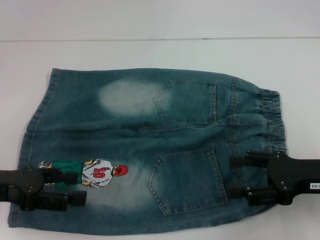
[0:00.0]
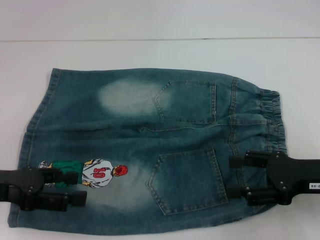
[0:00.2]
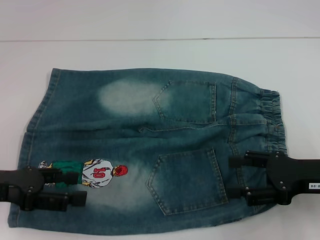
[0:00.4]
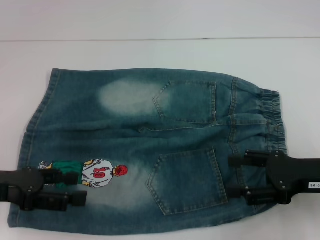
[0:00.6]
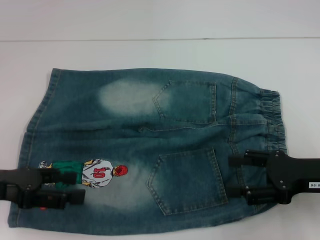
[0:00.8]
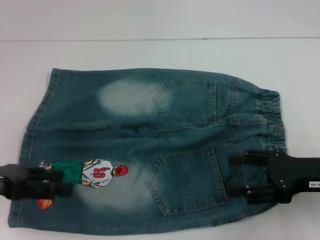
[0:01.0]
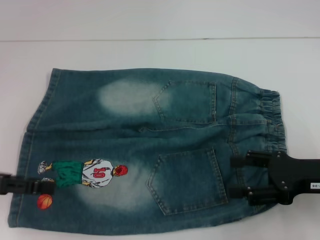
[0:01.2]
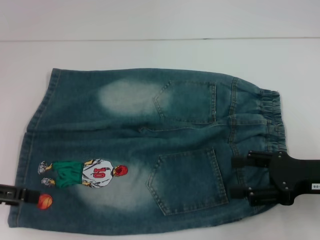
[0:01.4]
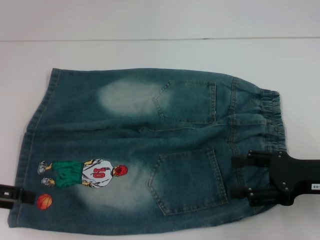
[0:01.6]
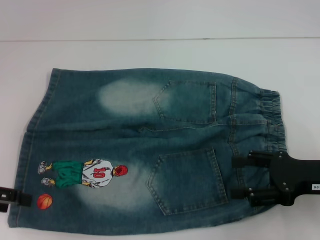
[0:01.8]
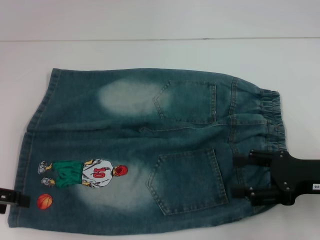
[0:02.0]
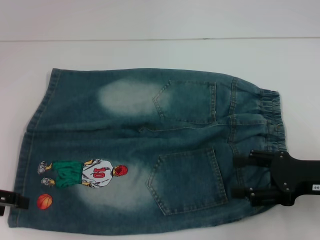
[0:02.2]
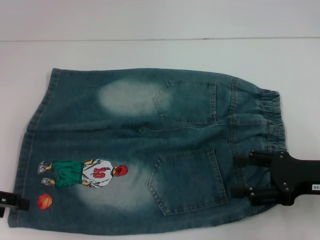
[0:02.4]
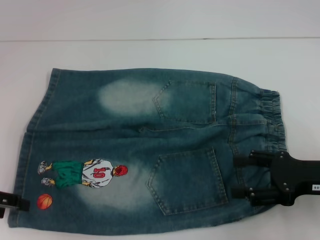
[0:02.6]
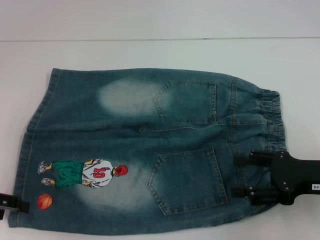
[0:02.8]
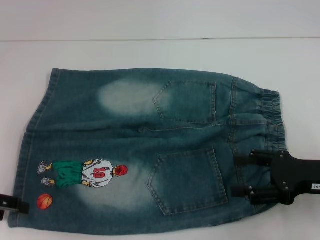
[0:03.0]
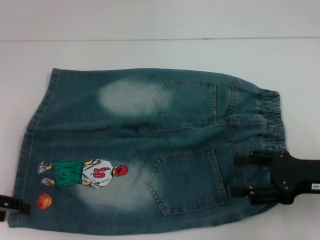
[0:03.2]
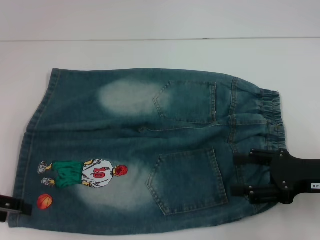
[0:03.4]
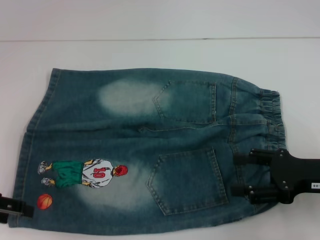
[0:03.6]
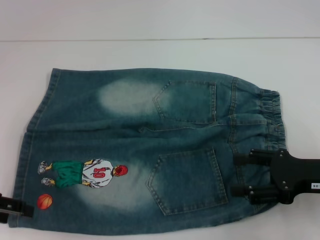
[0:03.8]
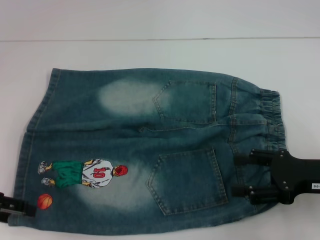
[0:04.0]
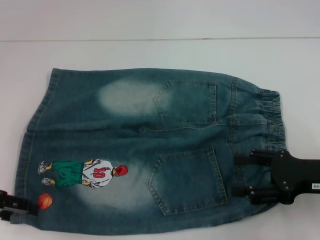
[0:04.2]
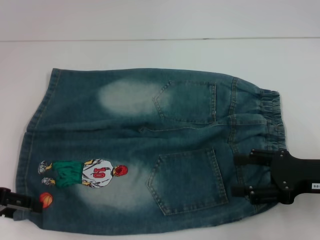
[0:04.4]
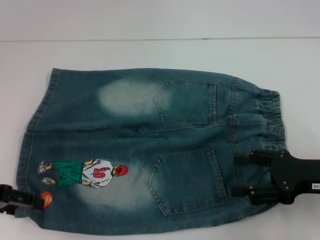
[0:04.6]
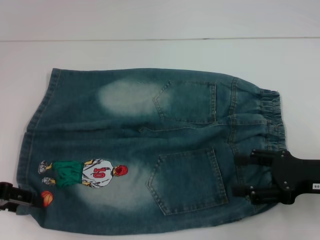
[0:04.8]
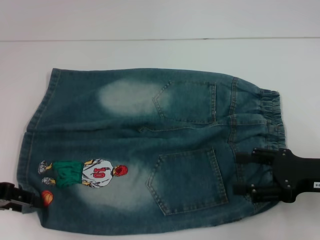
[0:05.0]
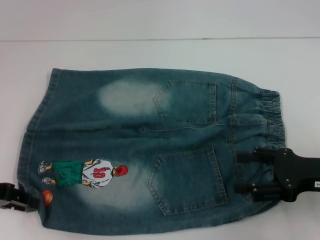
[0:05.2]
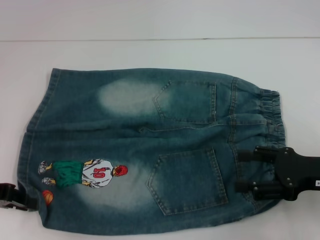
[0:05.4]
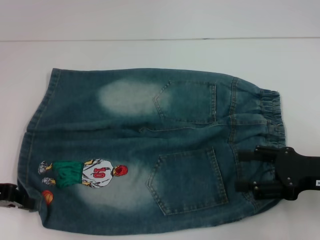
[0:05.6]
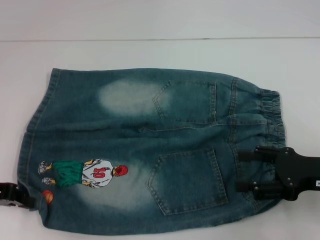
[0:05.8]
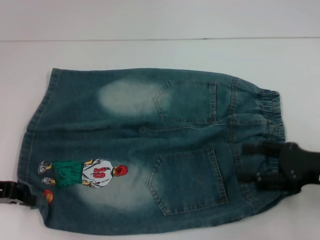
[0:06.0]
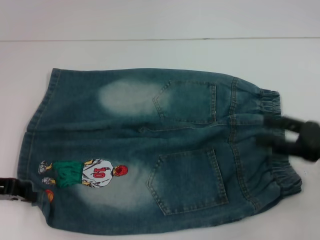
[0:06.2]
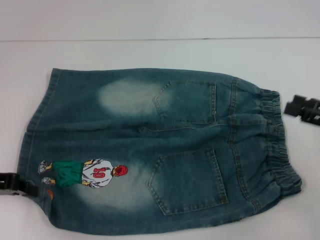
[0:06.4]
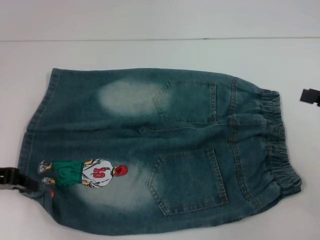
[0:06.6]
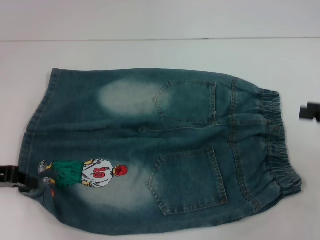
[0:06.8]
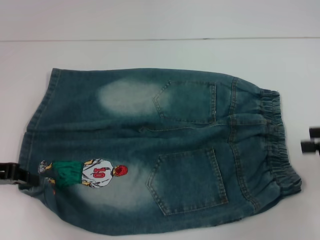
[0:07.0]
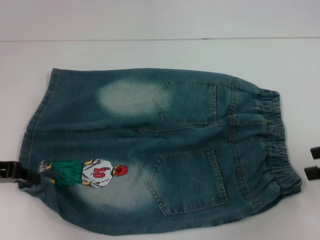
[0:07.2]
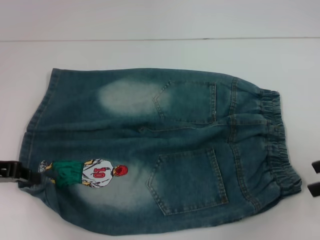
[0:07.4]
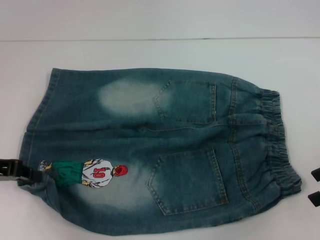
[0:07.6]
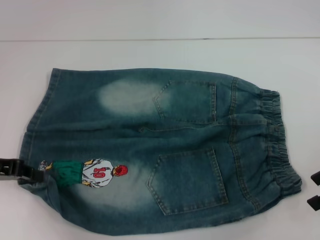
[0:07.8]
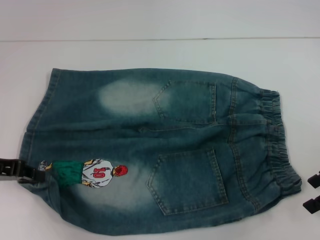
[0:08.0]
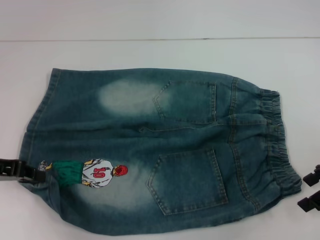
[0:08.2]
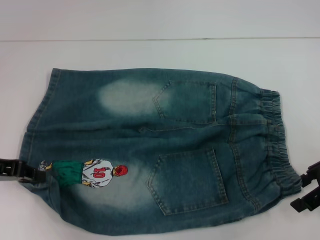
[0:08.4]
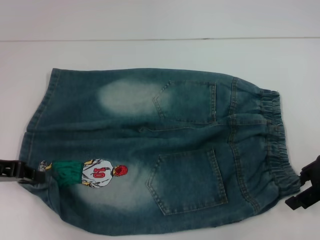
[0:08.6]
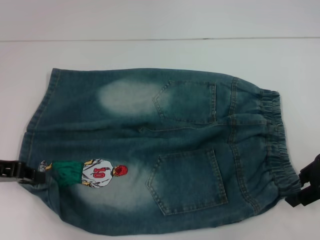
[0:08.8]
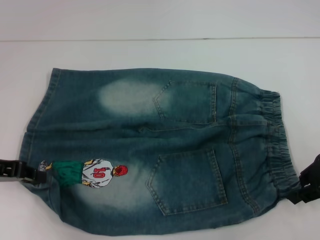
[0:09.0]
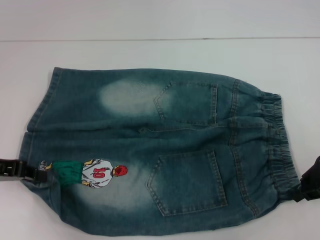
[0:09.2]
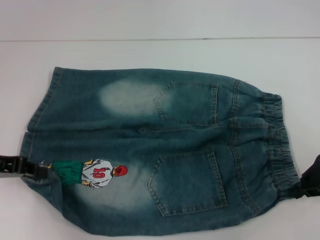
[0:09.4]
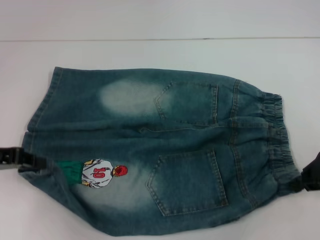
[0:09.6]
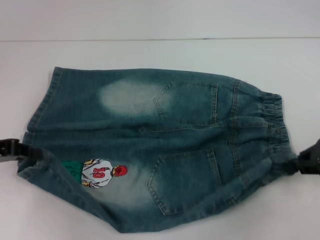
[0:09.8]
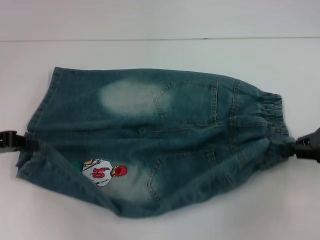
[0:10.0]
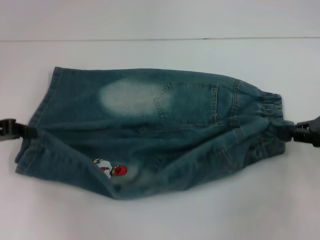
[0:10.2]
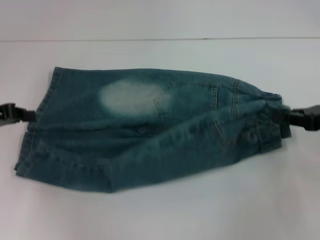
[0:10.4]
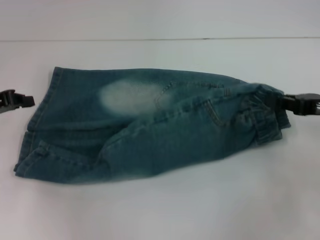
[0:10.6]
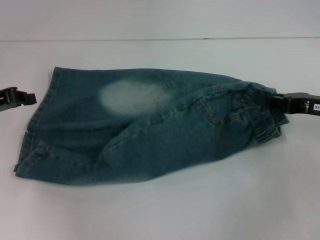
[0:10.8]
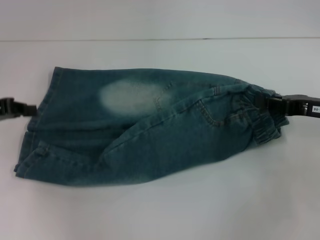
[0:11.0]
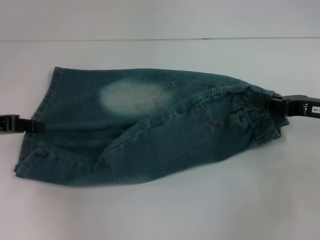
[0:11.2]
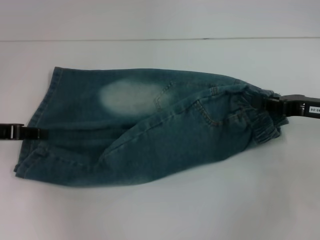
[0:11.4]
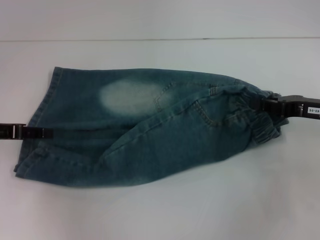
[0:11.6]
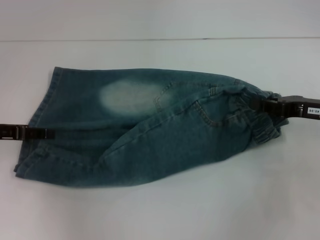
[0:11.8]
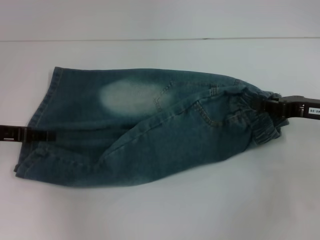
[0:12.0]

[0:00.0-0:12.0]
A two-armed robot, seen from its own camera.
Step, 0:00.0 to 0:05.8: Grab the lower left pant leg with your left hand.
Step, 0:06.2 to 0:09.2: Hold the lower right waistband with your right hand.
0:00.0 to 0:01.6: The left gripper moves roughly 5 cm.
0:03.0 to 0:04.4: The grippers make only small movements.
0:04.4 to 0:06.0: The left gripper closes up.
0:06.0 to 0:07.6: The right gripper moves upward and to the right, some 10 cm.
0:07.6 to 0:09.0: The right gripper travels to the left by about 5 cm.
0:09.0 to 0:10.4: The right gripper closes.
0:10.4 to 0:12.0: The left gripper opens up.

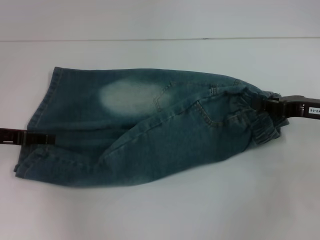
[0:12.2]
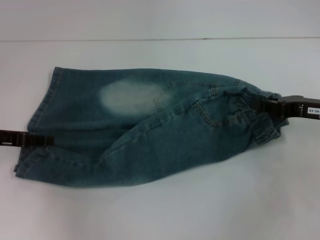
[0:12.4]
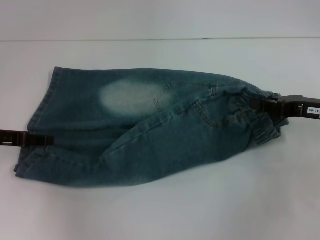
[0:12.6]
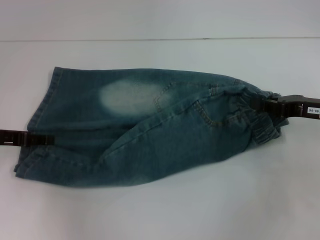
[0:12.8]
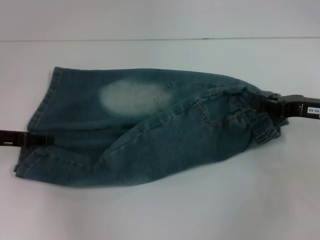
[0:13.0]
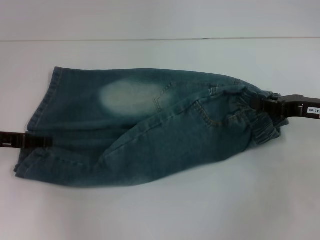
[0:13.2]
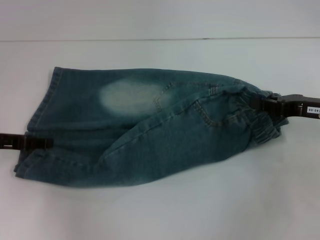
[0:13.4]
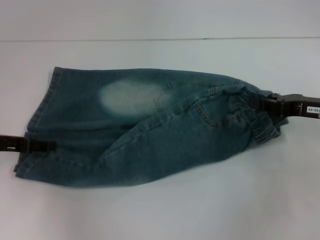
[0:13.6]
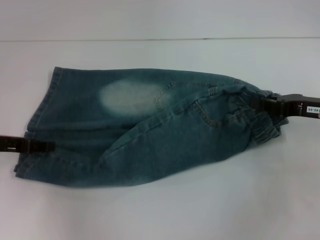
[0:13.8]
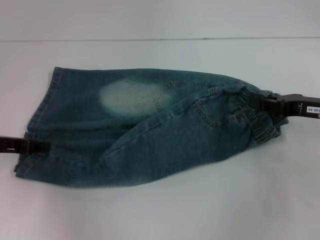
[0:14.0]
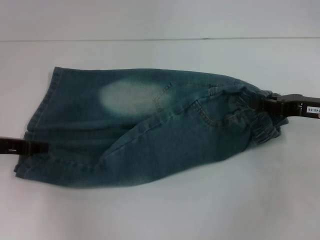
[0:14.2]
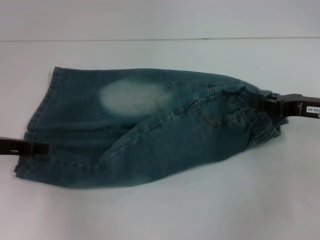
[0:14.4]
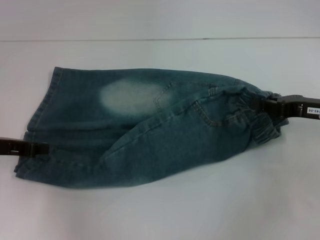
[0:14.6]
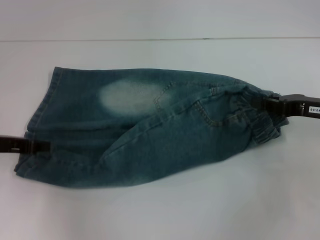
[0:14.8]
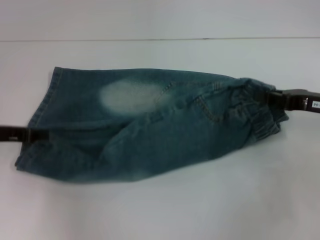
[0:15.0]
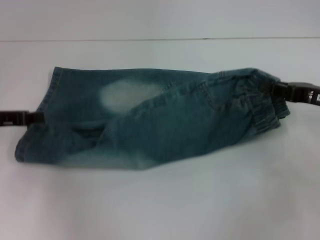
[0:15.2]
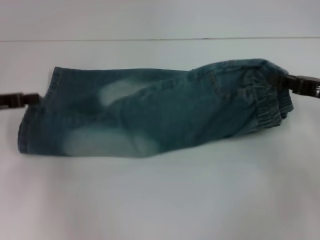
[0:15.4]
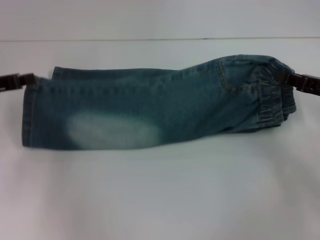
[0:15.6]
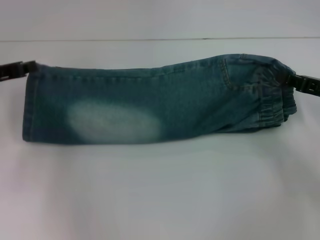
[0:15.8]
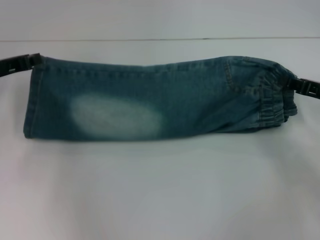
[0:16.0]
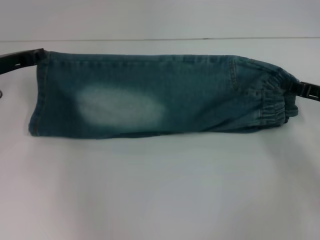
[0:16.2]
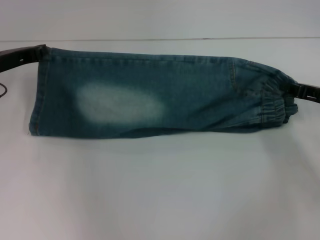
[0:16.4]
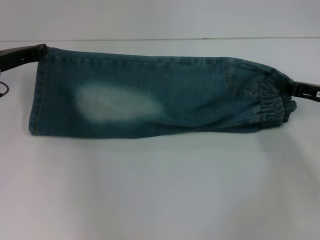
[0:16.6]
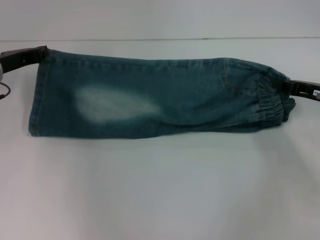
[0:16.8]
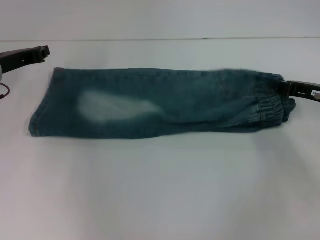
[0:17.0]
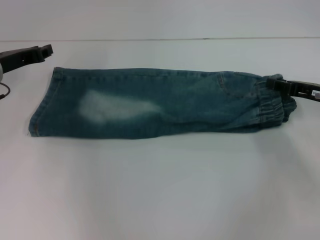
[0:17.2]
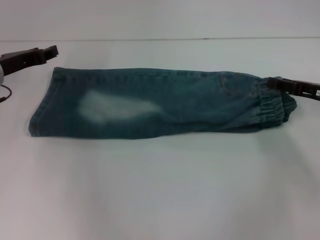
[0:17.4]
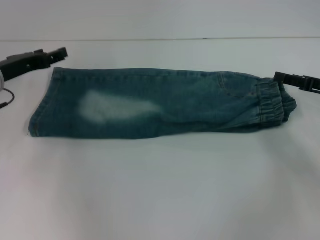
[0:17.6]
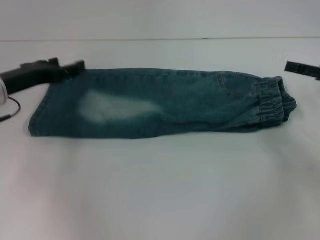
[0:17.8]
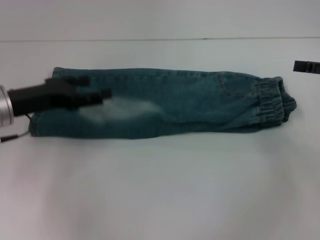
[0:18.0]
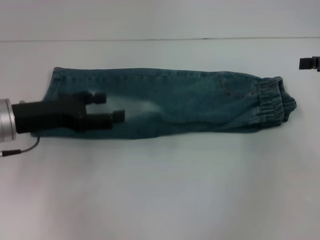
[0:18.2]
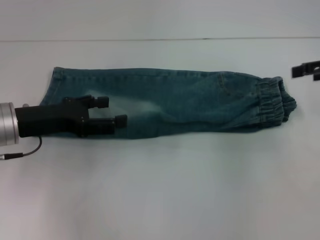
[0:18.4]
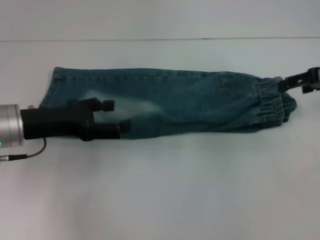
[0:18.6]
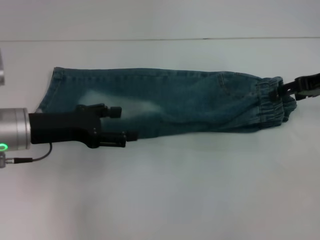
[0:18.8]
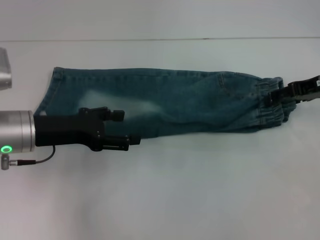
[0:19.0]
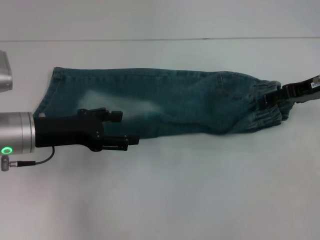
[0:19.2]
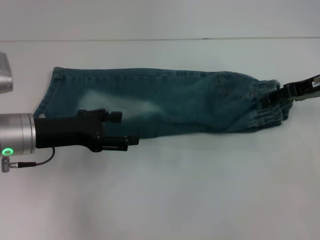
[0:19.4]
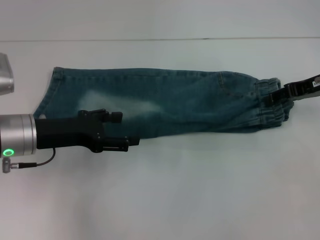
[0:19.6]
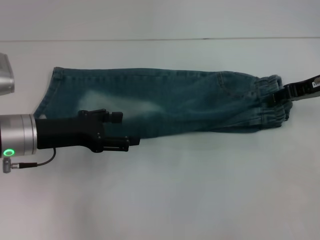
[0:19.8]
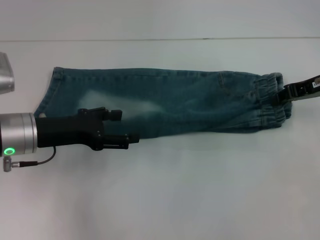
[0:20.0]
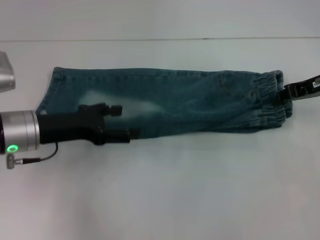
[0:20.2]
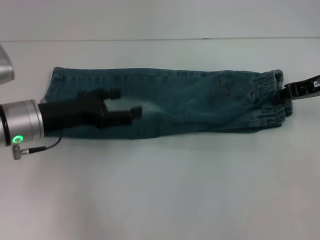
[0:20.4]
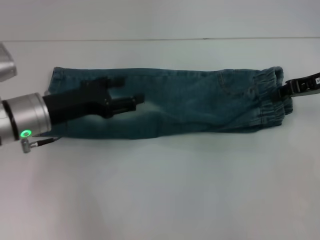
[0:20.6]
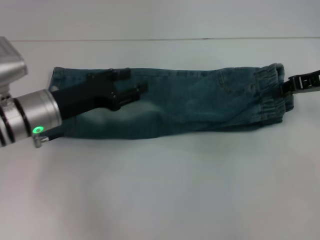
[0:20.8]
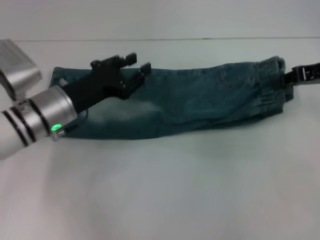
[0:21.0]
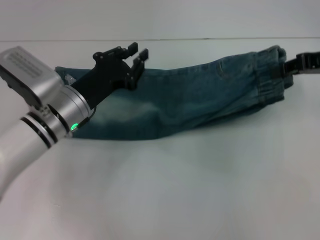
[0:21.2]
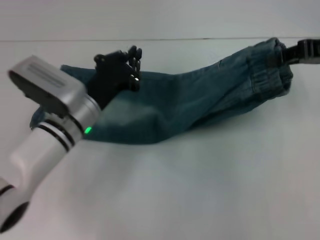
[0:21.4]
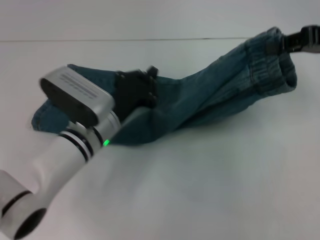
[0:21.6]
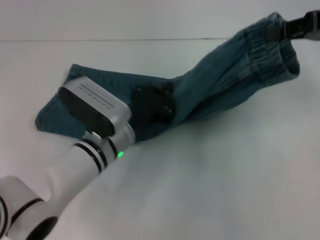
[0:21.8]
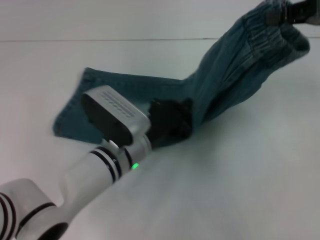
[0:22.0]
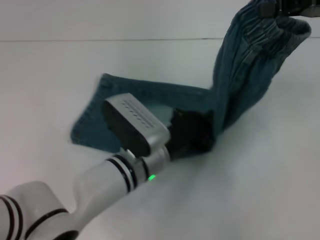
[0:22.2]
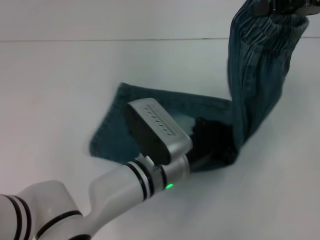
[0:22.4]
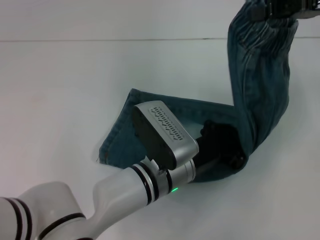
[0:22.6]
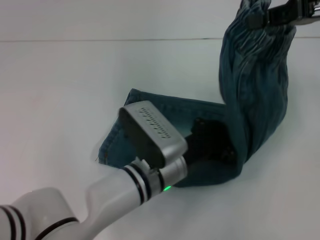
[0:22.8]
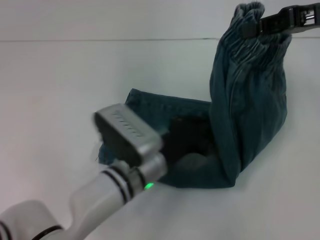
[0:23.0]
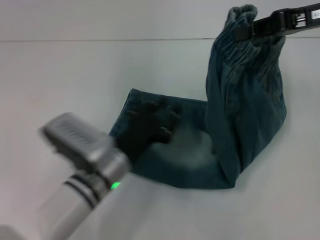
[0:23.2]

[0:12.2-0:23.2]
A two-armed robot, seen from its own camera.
Step, 0:12.2 to 0:17.2: Fold upward with your left hand.
Step, 0:17.6 to 0:20.2: Grab the waistband with your right hand.
Step, 0:20.4 to 0:22.6: Press the middle of the pants with your left hand.
0:12.2 to 0:13.8: The grippers stay close to where they were, moving slightly.
0:13.8 to 0:15.4: The left gripper closes up.
0:15.4 to 0:17.0: The left gripper moves forward, approximately 5 cm.
0:17.0 to 0:18.4: The left gripper heads backward, covering roughly 10 cm, and opens; the right gripper goes approximately 10 cm upward, and opens.
0:18.4 to 0:20.0: The right gripper shifts roughly 5 cm to the left, and closes up.
0:20.0 to 0:21.6: The right gripper shifts about 10 cm upward, while the left gripper goes some 15 cm to the right and downward, and closes its fingers.
0:21.6 to 0:23.2: The left gripper travels backward by about 5 cm, and reaches some 10 cm to the right, then returns.
